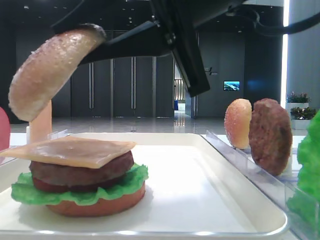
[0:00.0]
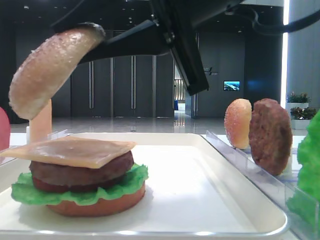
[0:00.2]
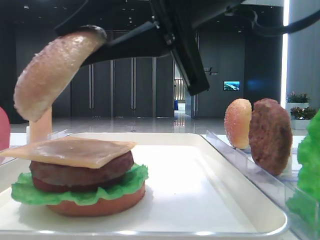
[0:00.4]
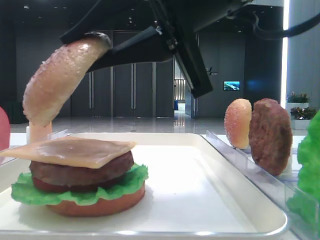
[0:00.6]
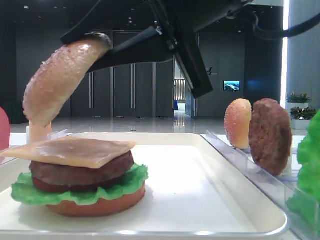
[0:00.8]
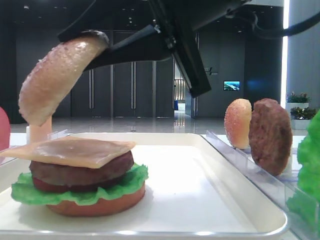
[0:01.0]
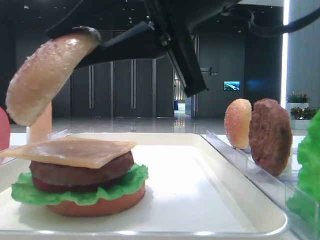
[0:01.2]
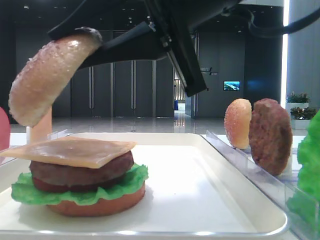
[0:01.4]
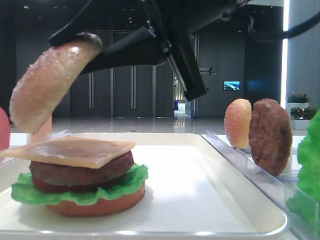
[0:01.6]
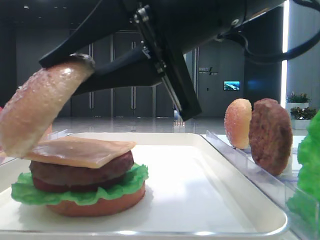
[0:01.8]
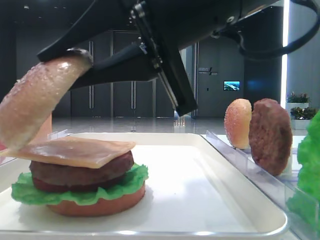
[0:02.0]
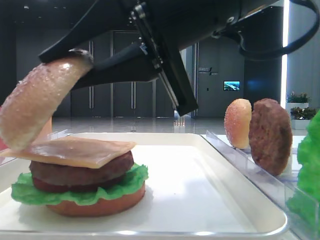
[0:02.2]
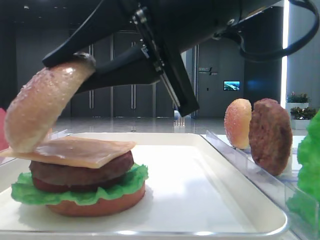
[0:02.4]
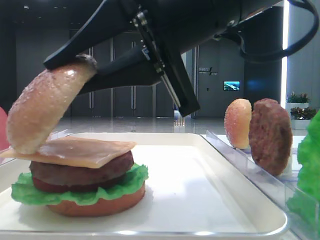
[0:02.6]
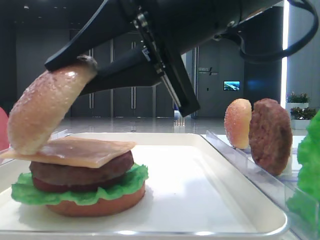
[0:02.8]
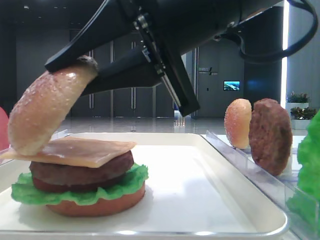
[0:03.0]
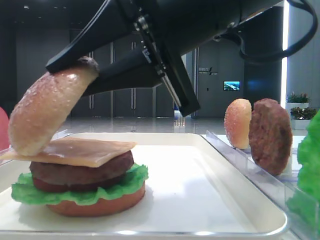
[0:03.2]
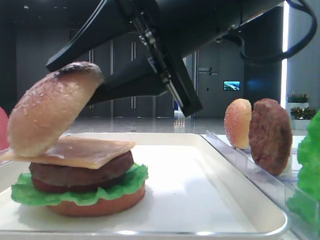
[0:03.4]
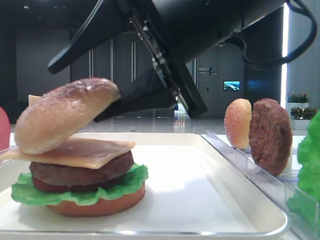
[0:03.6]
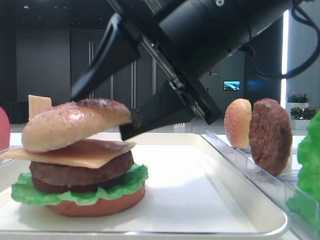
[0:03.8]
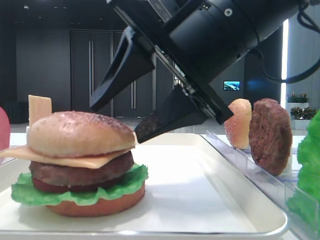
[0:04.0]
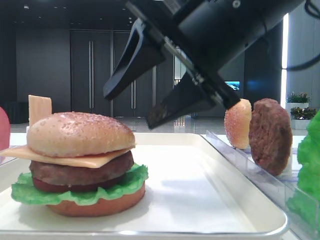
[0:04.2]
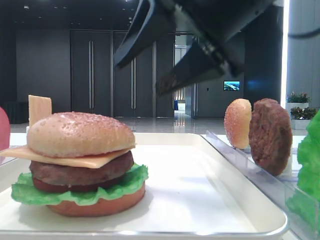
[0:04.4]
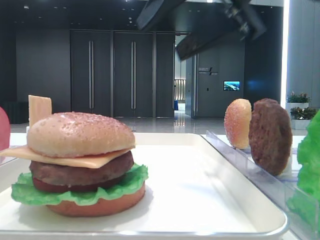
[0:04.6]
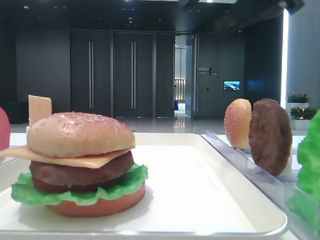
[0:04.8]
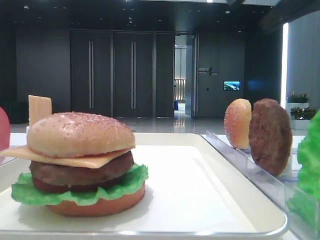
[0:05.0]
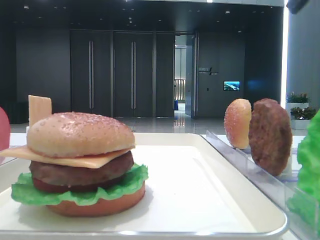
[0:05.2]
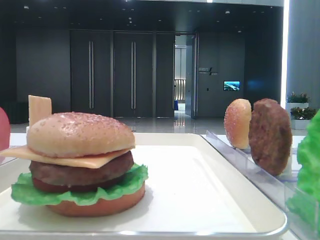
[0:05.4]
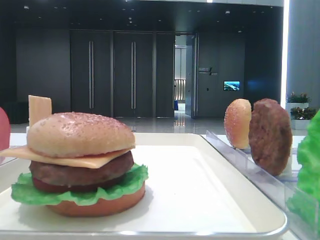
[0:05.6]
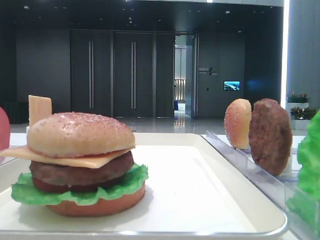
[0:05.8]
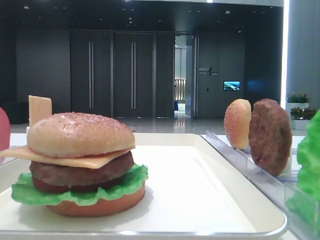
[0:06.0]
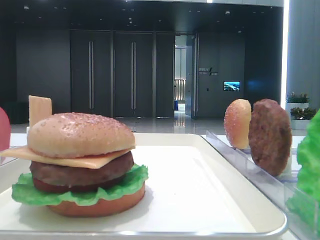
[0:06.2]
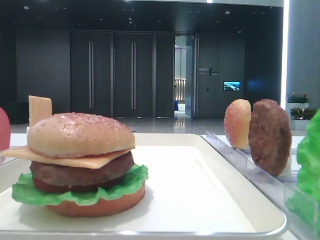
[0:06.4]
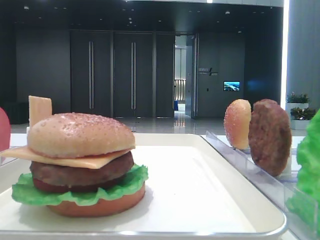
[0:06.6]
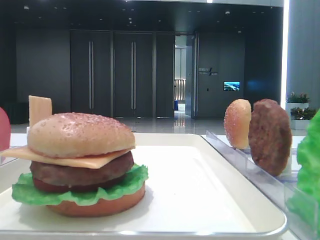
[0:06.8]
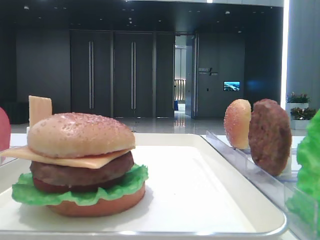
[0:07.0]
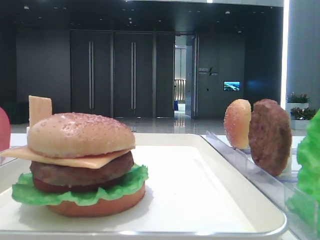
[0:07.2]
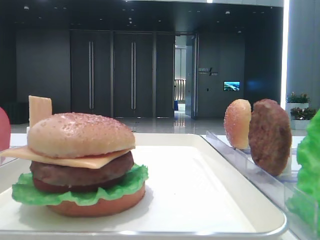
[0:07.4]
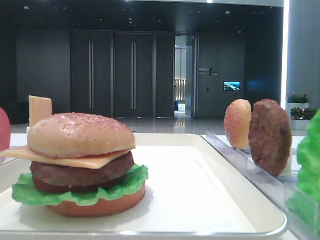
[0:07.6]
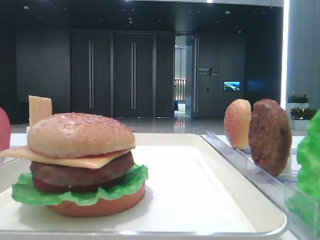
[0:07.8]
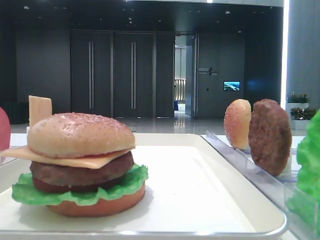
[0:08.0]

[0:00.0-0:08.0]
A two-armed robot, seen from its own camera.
Step, 0.0 to 3.8 s: Place the top bread slice on the cheese with the right hand.
0.0 to 1.6 s: Both grippers stay about where they are.
1.6 to 3.2 s: Both grippers stay put.
3.2 to 4.8 s: The right gripper heads to the right and upward, covering roughly 15 cm, and opens its fingers.
4.8 to 6.4 s: The right gripper is displaced backward and to the right by about 30 cm.

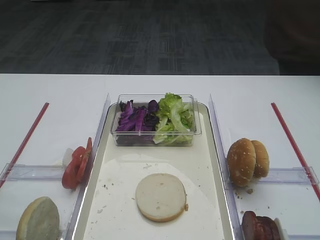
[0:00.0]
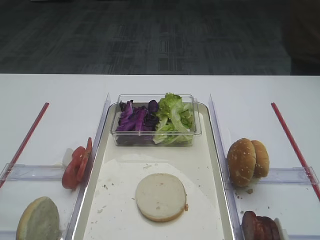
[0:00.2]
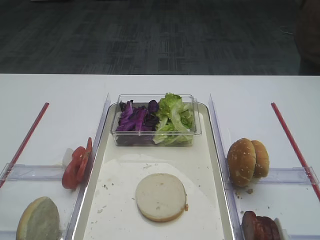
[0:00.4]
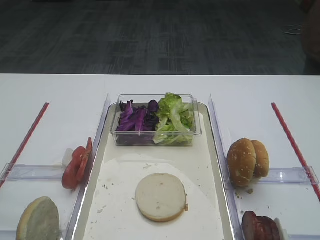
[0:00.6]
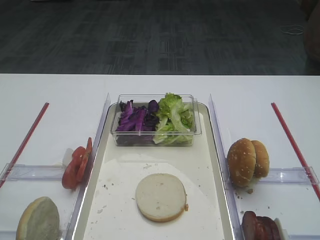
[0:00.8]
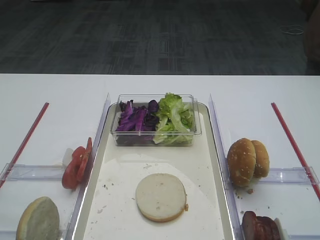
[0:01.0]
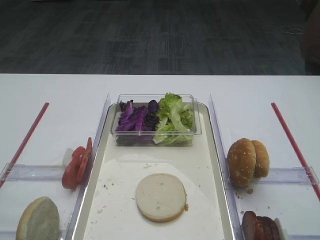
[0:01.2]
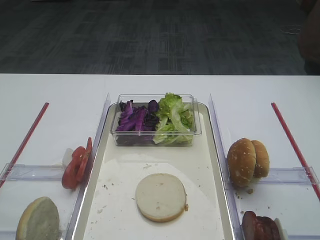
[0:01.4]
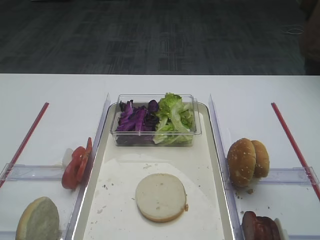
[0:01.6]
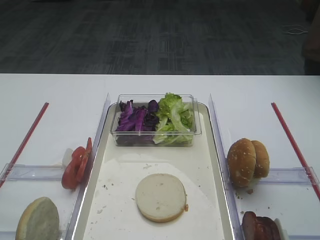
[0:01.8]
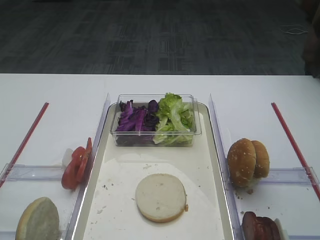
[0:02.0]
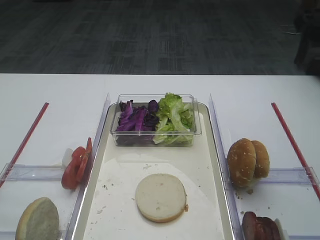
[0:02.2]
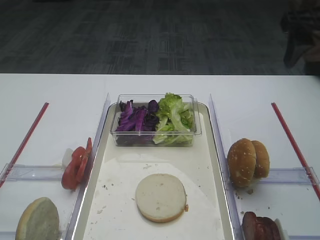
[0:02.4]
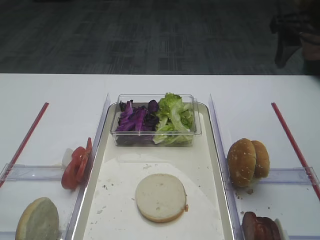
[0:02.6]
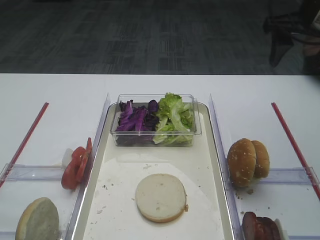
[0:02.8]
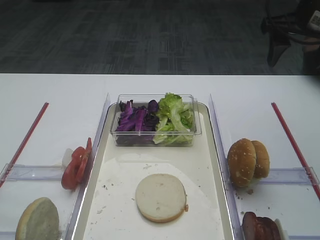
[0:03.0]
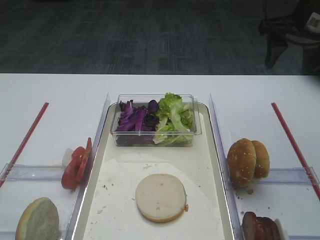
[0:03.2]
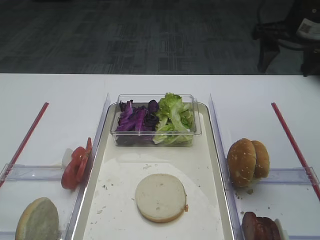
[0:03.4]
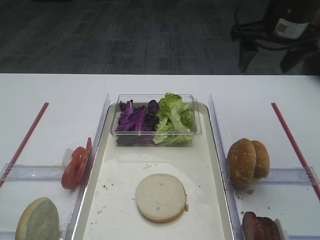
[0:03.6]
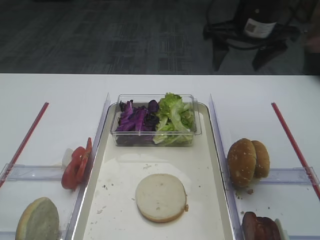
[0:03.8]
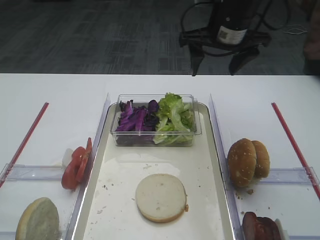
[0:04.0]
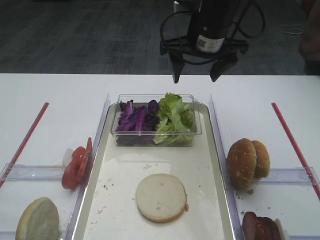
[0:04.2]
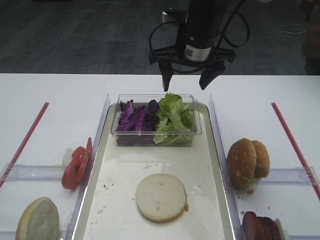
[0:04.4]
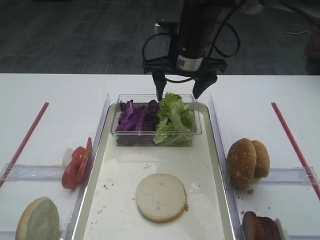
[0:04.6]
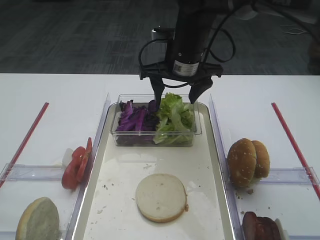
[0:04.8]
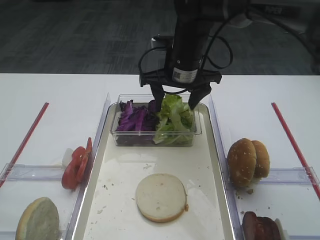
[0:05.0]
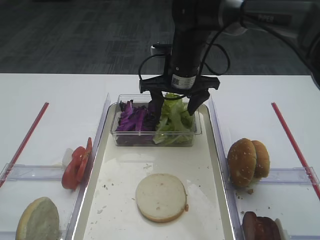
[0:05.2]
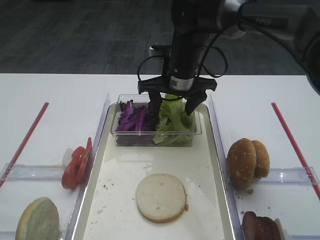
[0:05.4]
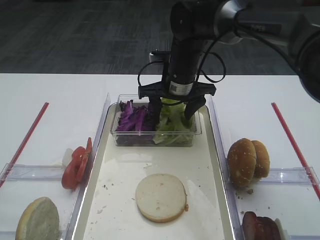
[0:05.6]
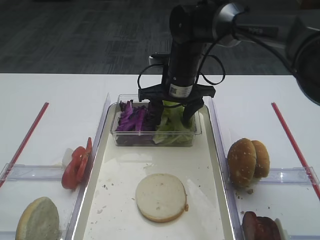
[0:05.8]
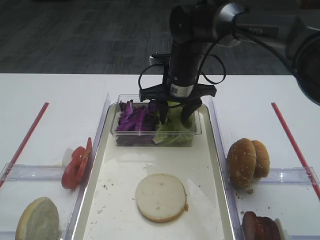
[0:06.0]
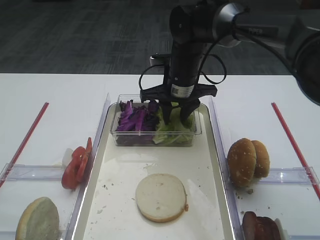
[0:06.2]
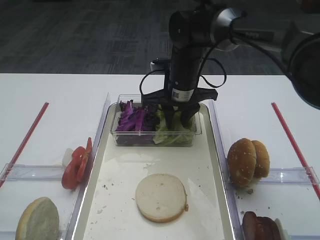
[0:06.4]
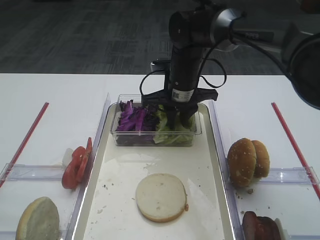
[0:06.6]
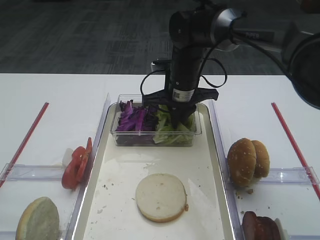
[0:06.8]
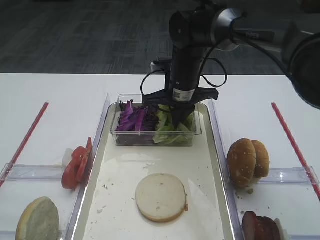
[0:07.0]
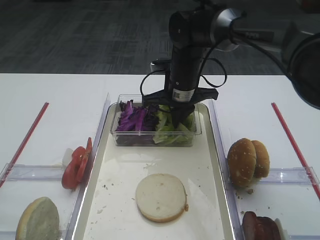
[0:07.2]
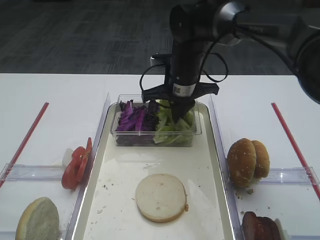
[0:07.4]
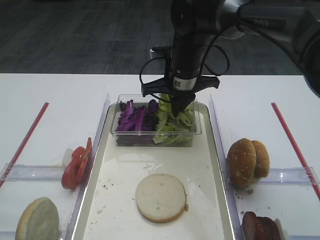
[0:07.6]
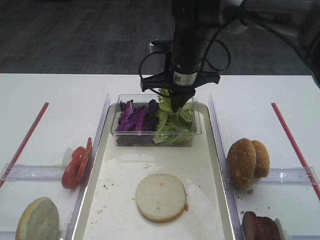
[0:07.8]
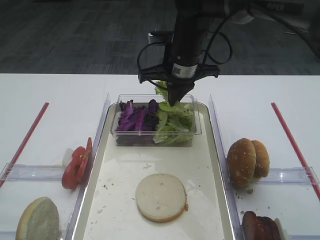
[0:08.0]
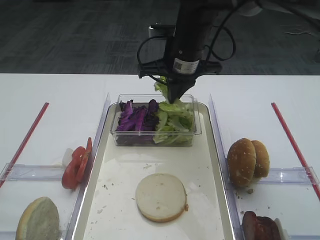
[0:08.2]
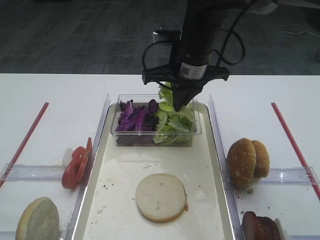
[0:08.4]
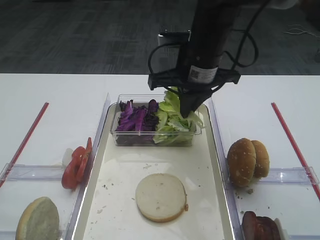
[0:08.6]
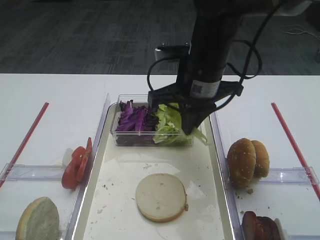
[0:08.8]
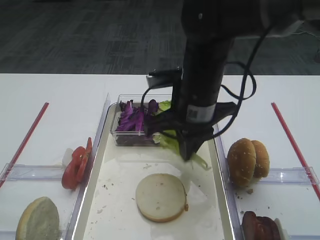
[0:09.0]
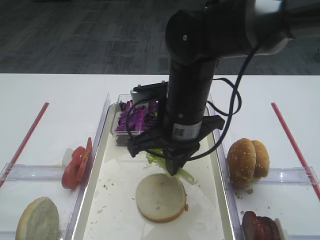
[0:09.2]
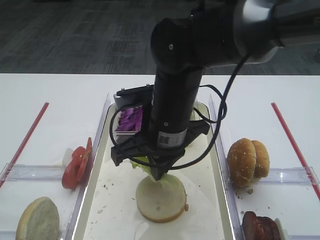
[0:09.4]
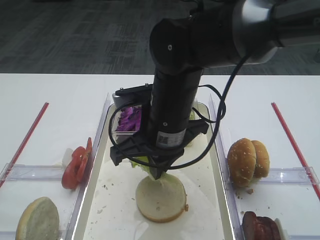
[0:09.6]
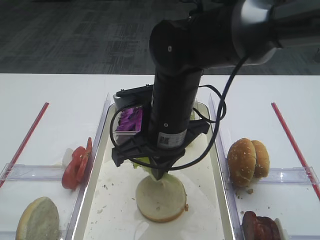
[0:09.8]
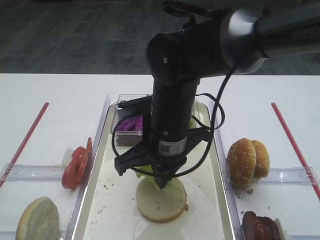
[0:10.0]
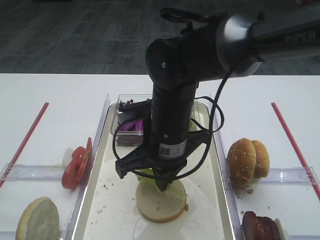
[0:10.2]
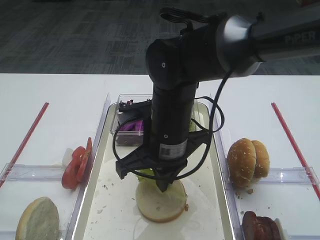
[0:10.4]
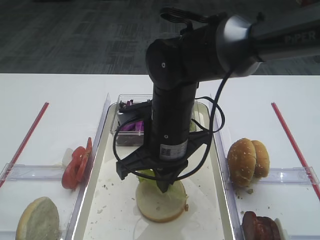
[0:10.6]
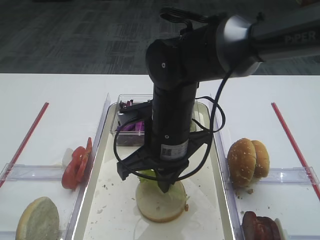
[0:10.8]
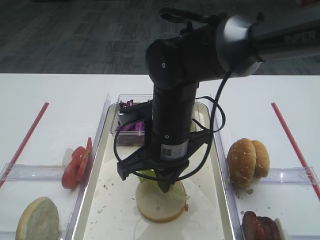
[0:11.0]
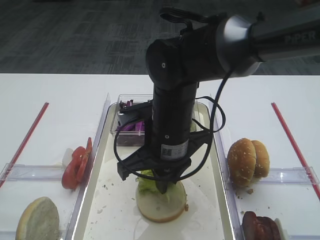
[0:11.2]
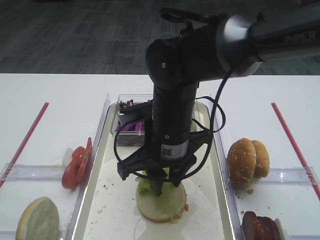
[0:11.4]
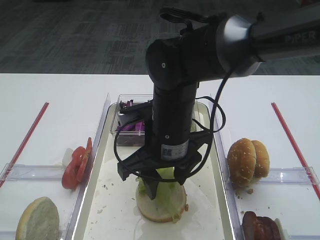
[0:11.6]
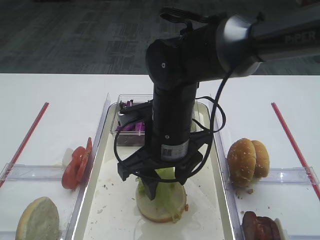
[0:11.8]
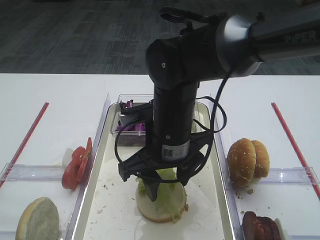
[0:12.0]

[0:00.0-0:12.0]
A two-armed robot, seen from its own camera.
Step, 0.0 to 8.6 s: Pick up the lettuce leaf with the right gripper.
1.6 to 3.0 s: The right gripper moves forward, some 20 cm.
3.0 to 4.4 s: The right gripper moves to the left, roughly 15 cm.
4.4 to 6.0 s: The right gripper goes some 10 cm downward.
6.0 to 7.6 s: The right gripper closes its fingers.
7.6 to 9.0 s: The right gripper moves backward, approximately 10 cm.
9.0 to 10.4 s: The right gripper shifts by approximately 5 cm.
10.4 to 12.0 s: The right gripper opens.

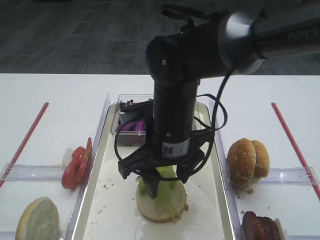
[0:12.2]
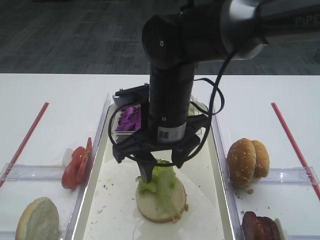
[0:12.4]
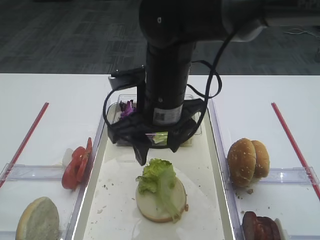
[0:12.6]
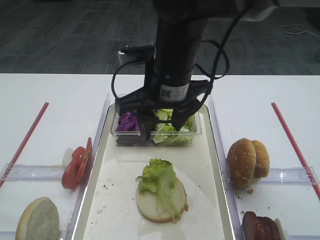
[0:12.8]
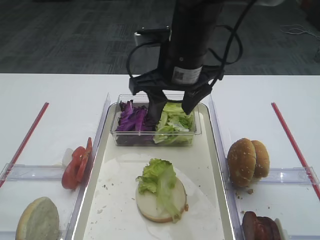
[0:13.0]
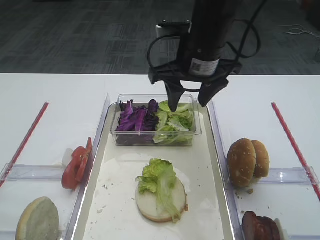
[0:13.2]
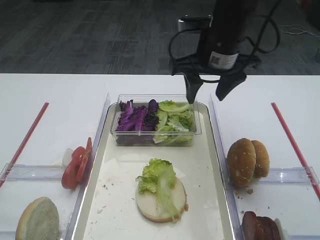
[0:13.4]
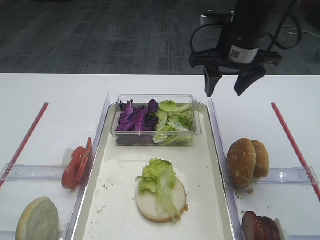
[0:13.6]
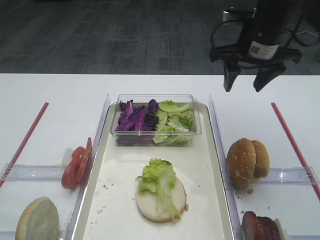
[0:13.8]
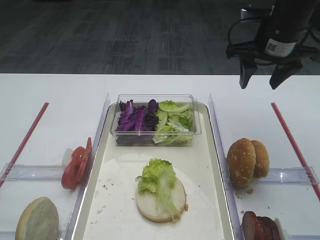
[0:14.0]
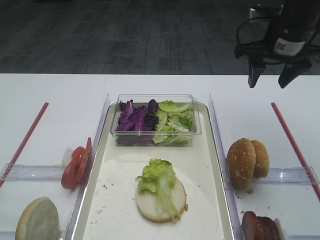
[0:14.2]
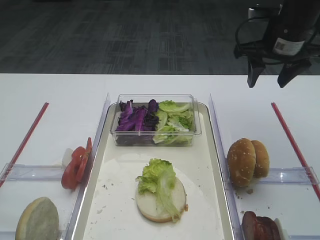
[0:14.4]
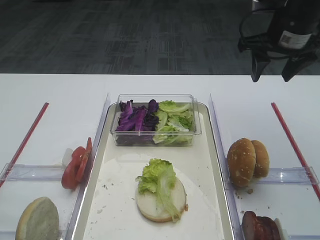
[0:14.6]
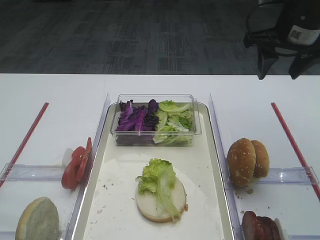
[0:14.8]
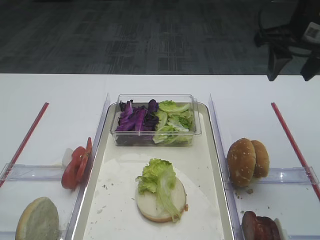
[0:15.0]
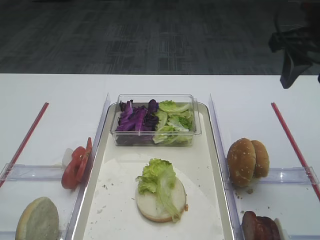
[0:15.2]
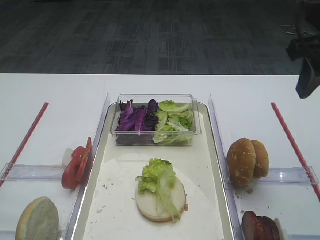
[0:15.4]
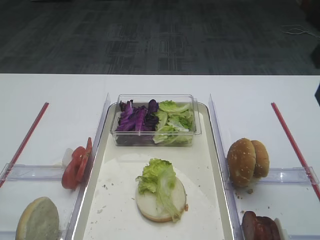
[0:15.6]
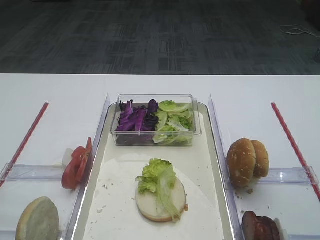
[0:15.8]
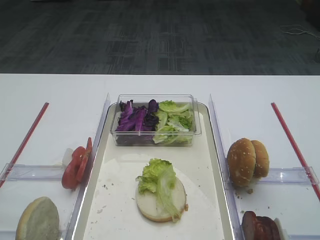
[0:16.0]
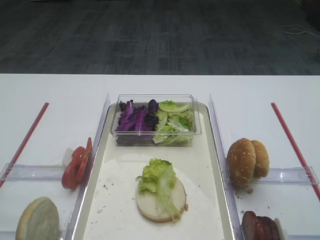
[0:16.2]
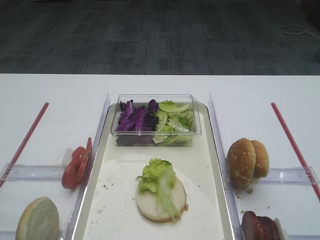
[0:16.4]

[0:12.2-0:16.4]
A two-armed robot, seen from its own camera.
12.2 to 13.6 s: The right gripper moves to the right, forward and upward, some 20 cm.
13.6 to 15.0 s: The right gripper heads to the right, covering some 10 cm.
15.0 to 16.4 s: The right gripper moves backward, about 30 cm.
